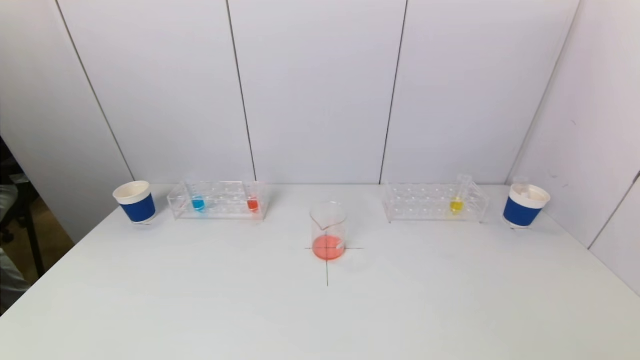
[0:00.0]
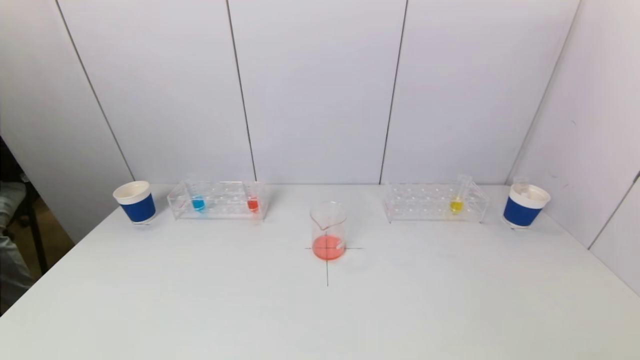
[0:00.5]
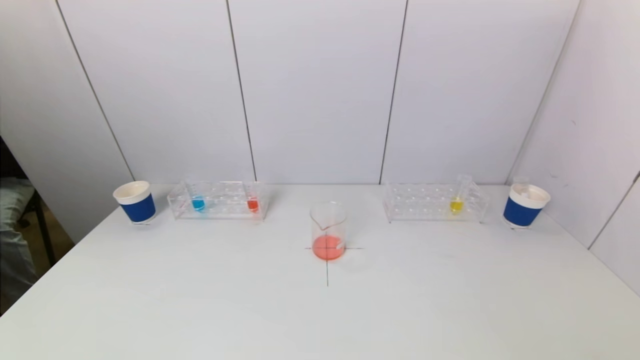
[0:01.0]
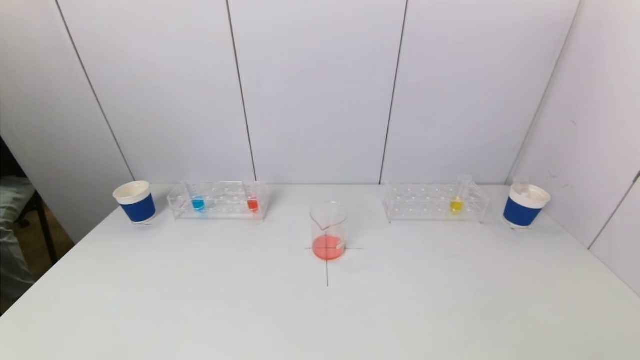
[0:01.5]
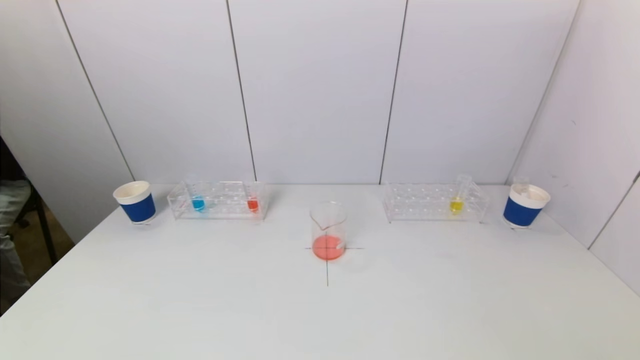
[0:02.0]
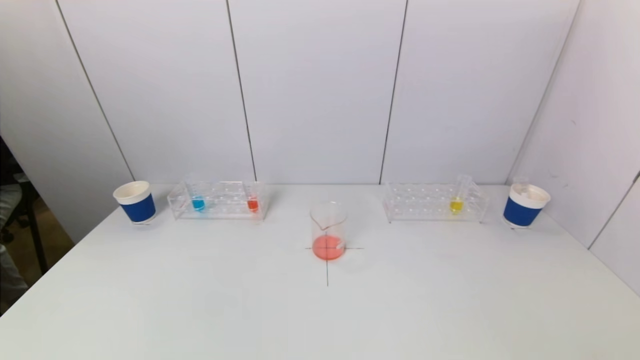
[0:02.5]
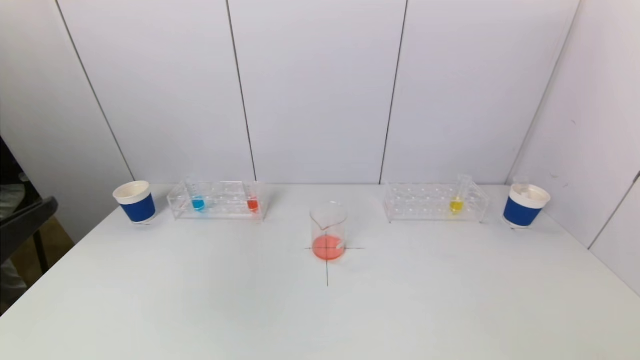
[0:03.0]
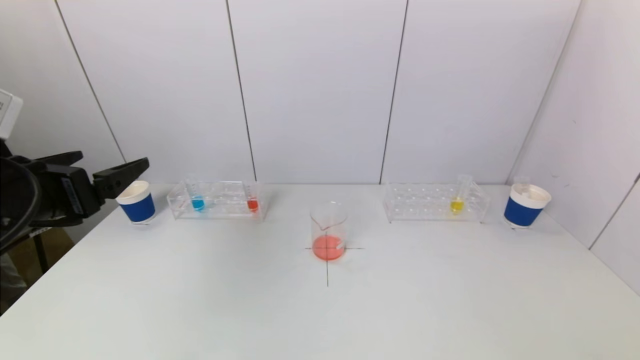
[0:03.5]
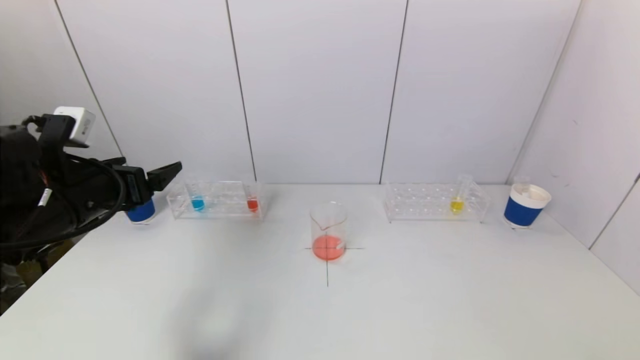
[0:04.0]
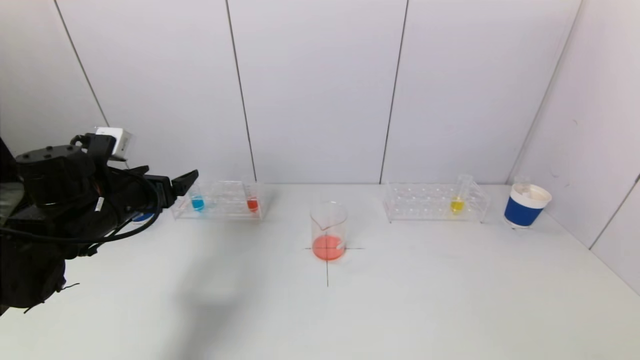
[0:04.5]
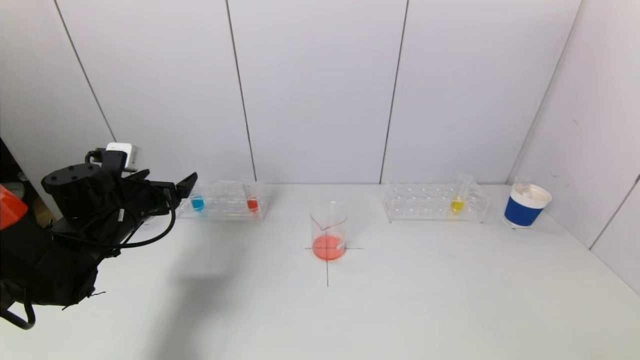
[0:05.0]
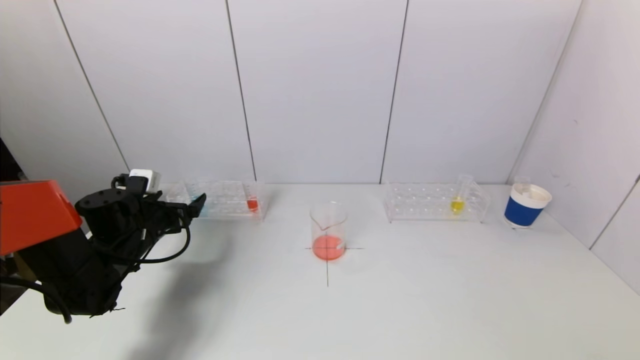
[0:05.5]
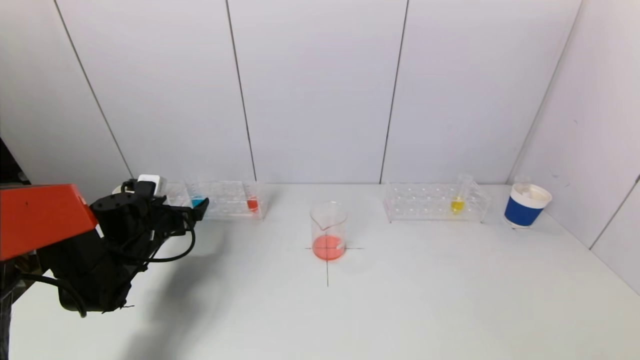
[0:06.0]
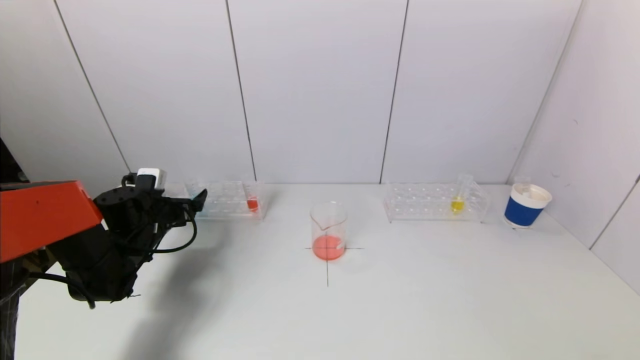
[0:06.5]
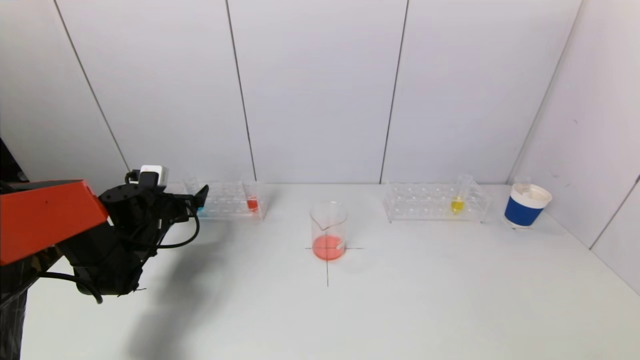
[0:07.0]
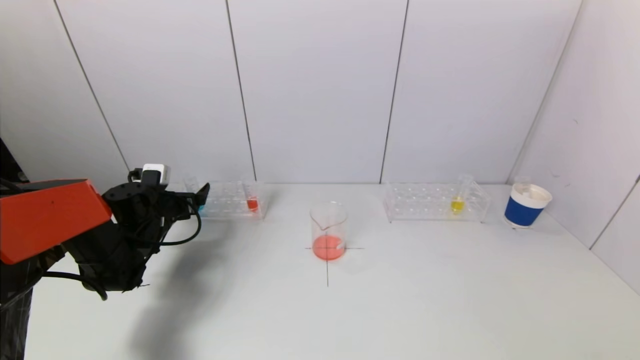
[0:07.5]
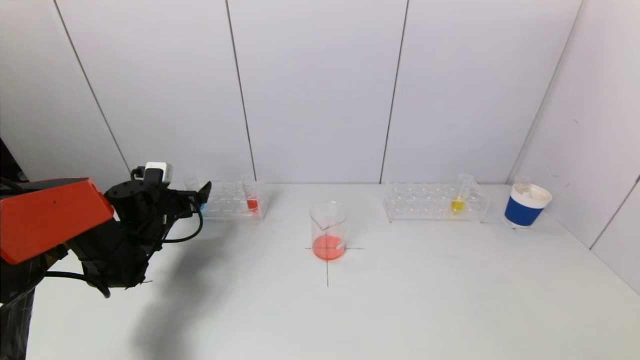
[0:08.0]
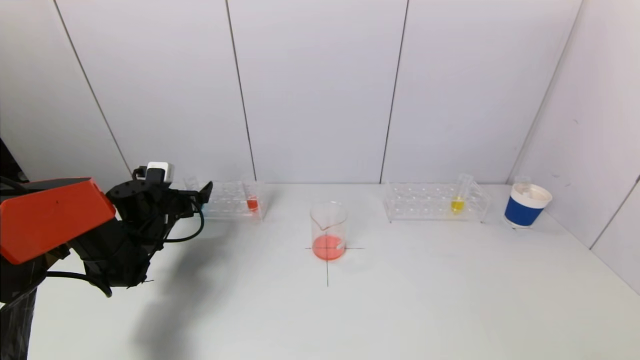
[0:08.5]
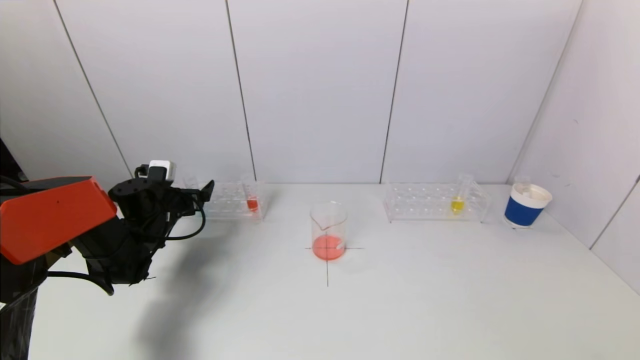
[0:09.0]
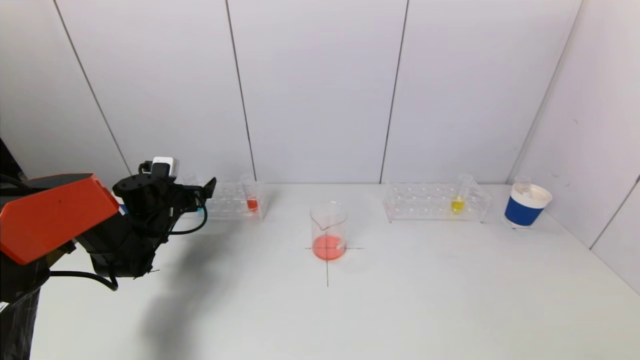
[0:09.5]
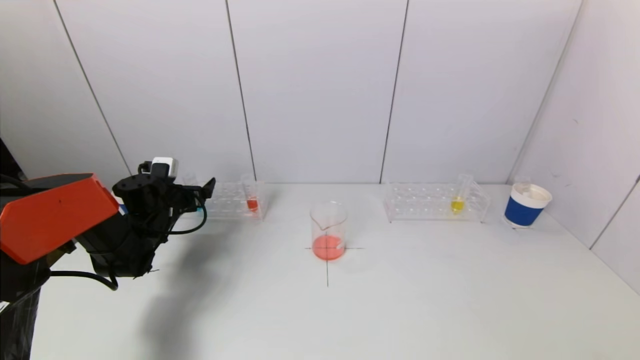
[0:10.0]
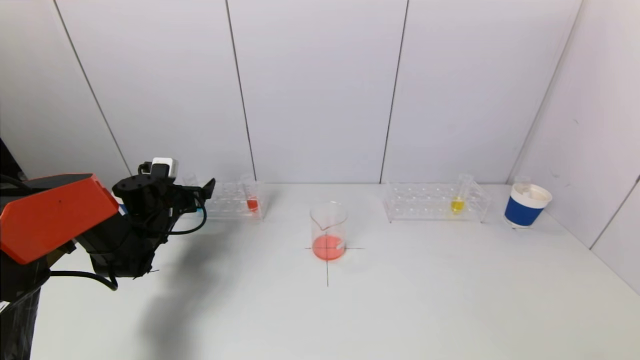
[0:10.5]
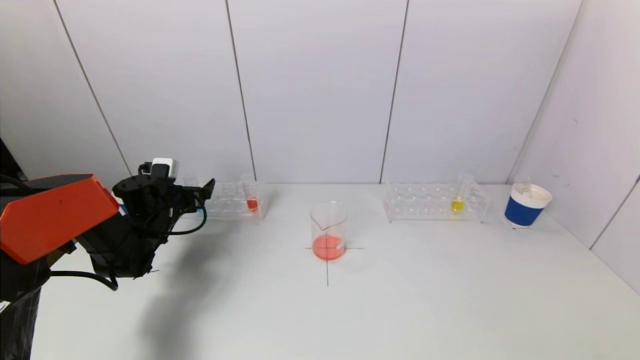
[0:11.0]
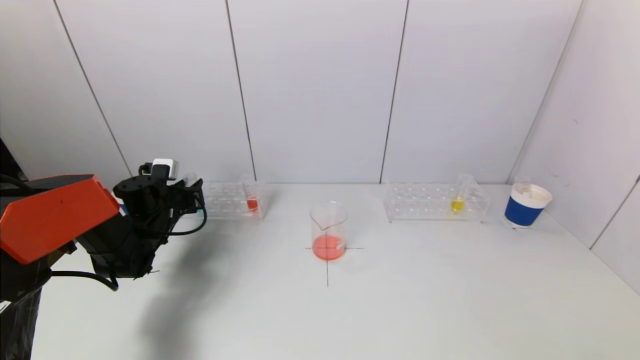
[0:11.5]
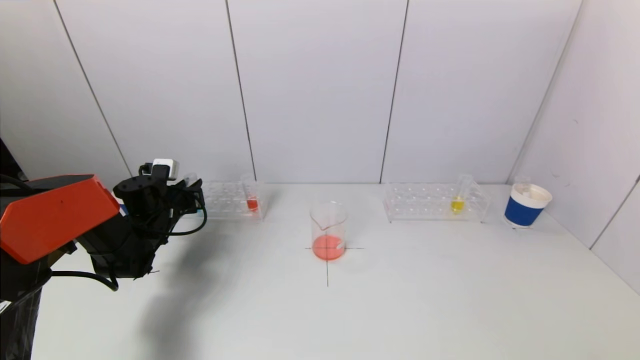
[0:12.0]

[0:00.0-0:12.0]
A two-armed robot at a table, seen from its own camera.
Task of the whole recording: pick up a test tube with pigment on left test tube rack and a test tube with pigment on right test tube rack by grippers and pour them into the beaker.
0.0 to 2.0 s: The left gripper heads upward, covering some 5 cm.
2.0 to 4.0 s: The left gripper goes approximately 30 cm forward.
4.0 to 6.0 s: The left gripper travels downward and forward by approximately 20 cm.
6.0 to 10.0 s: The grippers move only a little.
10.0 to 12.0 s: The left gripper closes up.

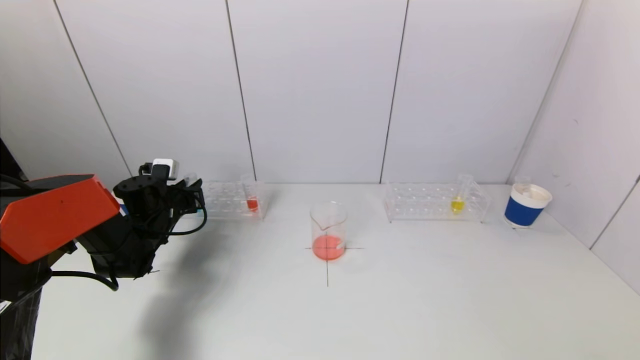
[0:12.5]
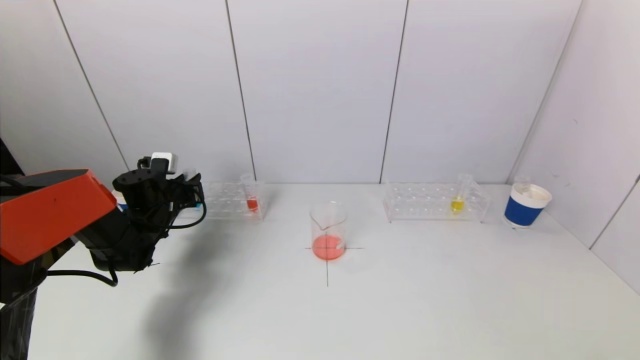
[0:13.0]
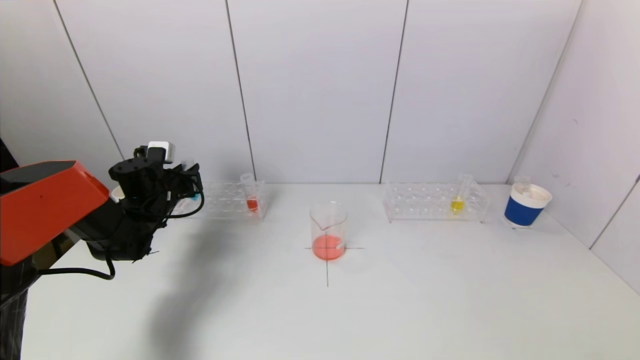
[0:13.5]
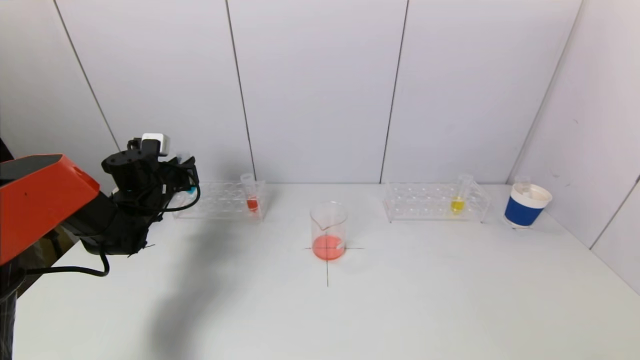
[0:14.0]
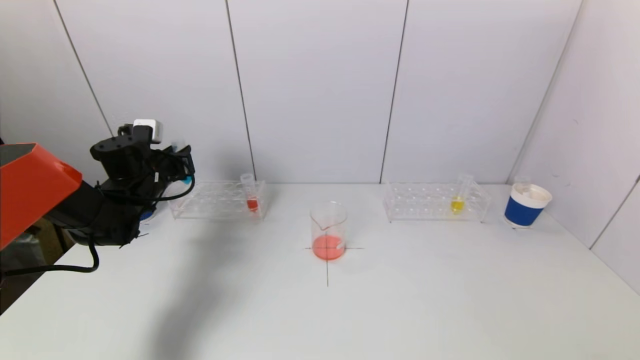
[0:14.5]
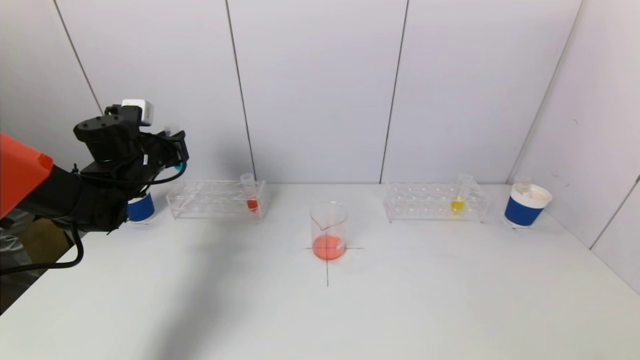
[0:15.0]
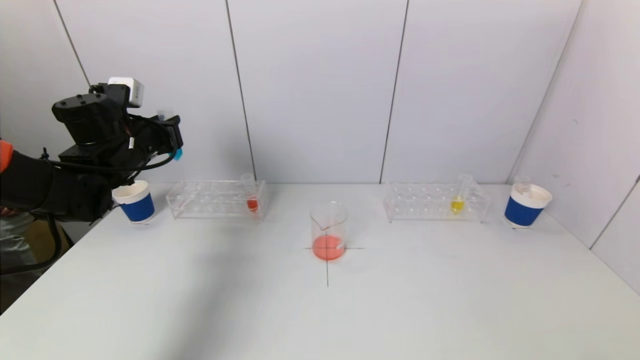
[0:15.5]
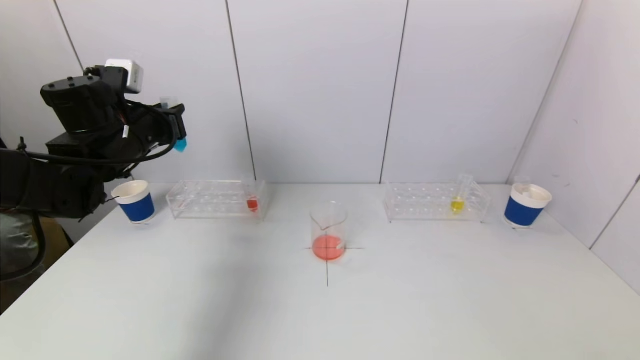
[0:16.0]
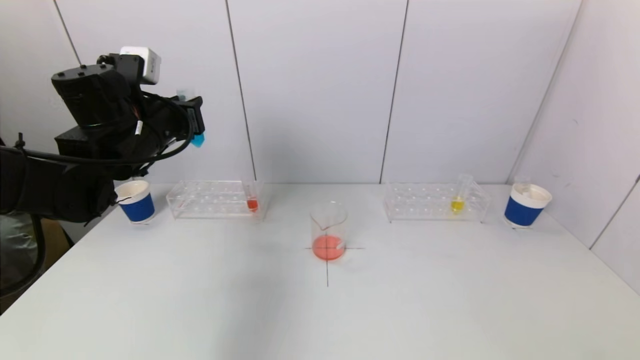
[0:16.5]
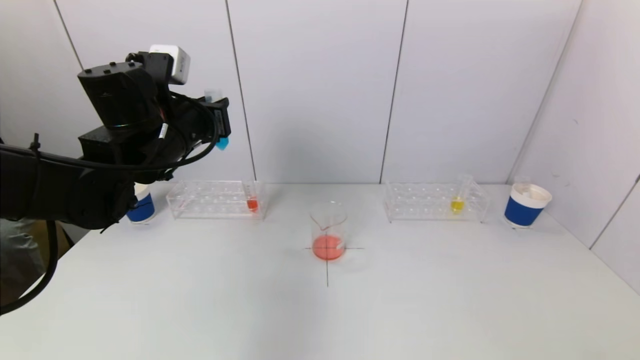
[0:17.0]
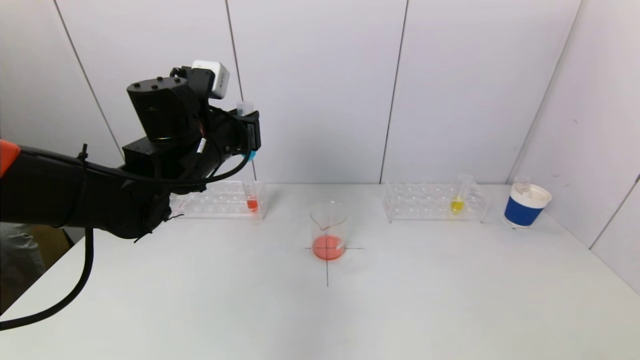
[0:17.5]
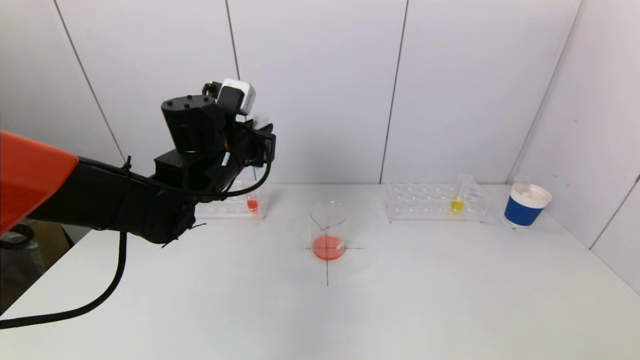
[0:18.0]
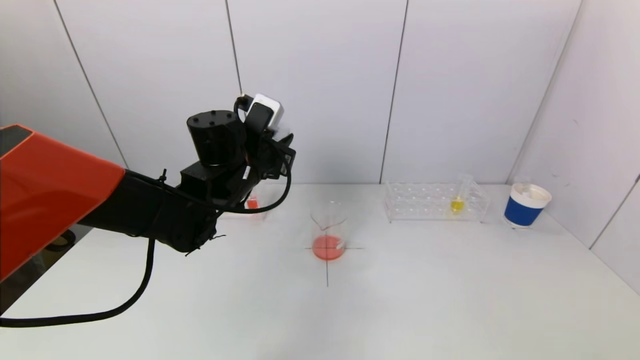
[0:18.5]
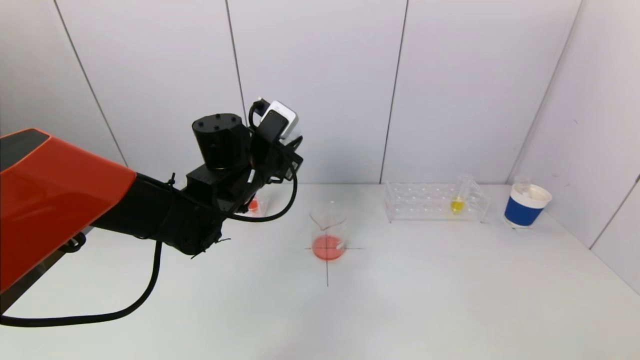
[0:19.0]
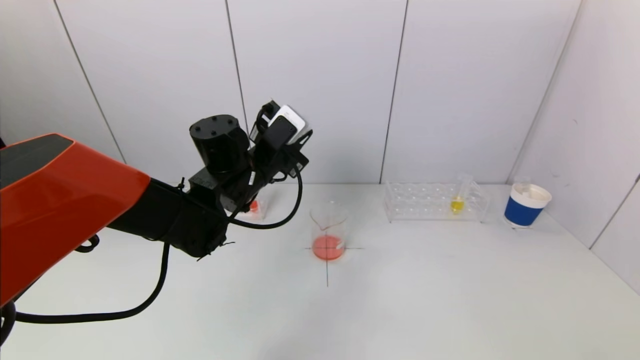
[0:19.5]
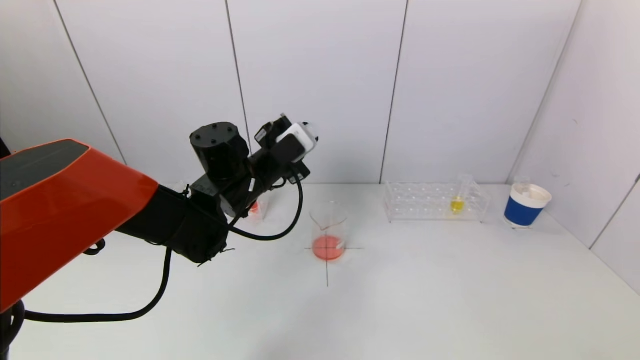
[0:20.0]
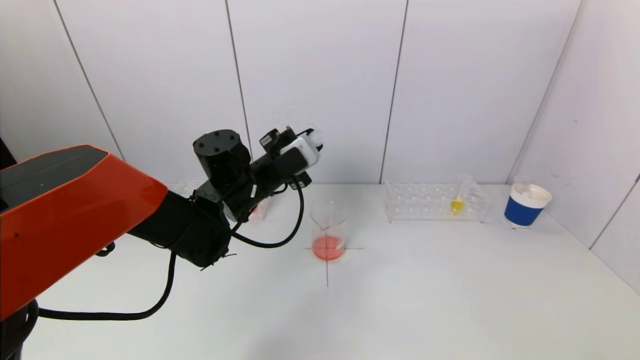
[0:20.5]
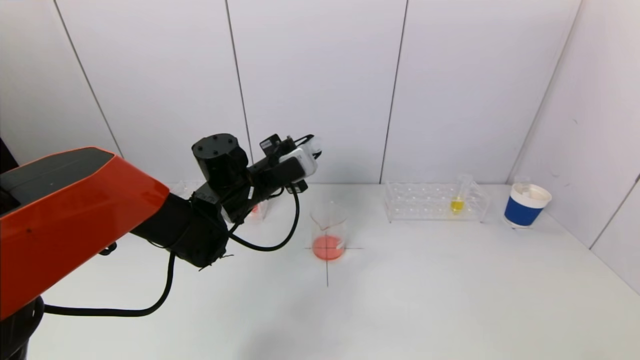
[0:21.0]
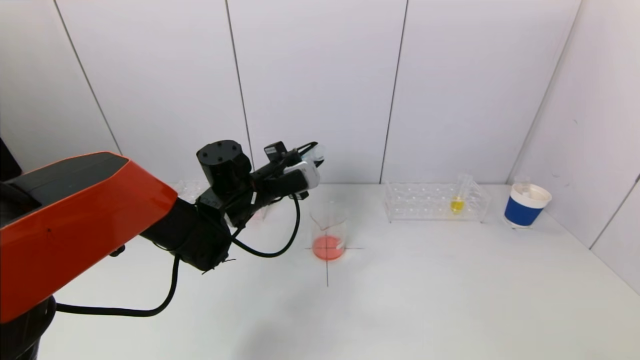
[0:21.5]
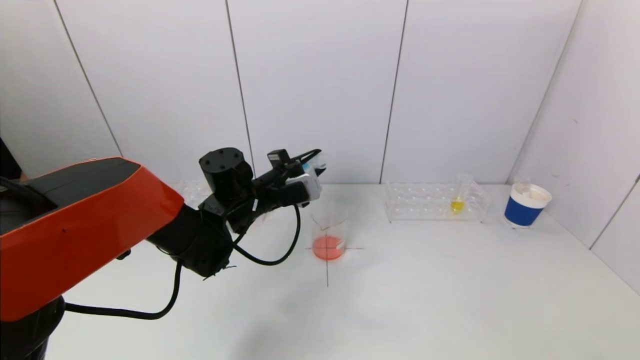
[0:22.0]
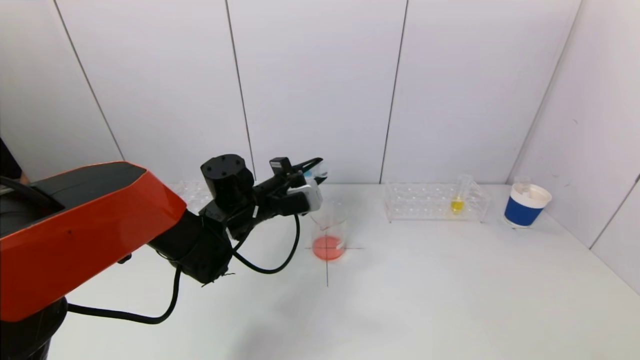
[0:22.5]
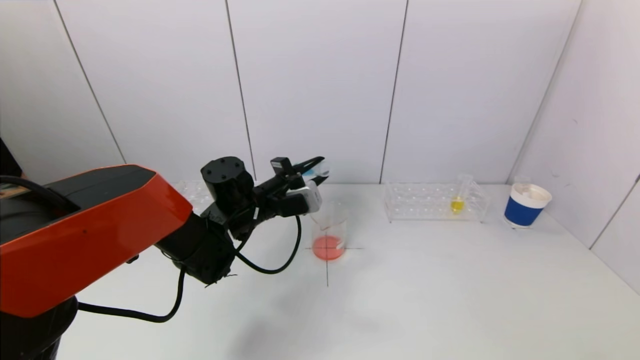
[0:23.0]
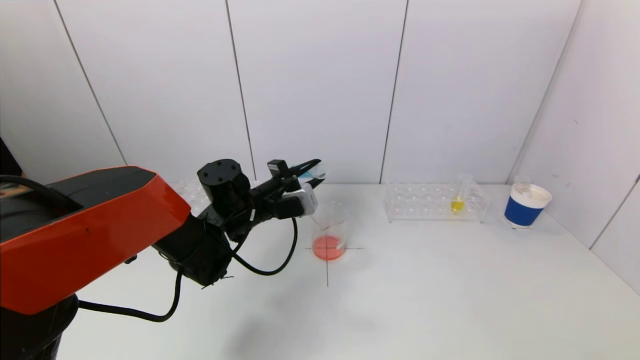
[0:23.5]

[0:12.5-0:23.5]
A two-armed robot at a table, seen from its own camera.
Task of the whole recording: pick up a test tube with pigment on left test tube rack and a test tube with pigment on right test tube rack by grippers and pour them into the beaker.
12.5 to 14.5 s: The left gripper heads upward, covering approximately 10 cm.
14.5 to 16.0 s: The left gripper shifts roughly 10 cm upward and backward.
16.0 to 18.0 s: The left gripper moves to the right, about 15 cm.
20.0 to 21.5 s: The grippers move only a little.
21.5 to 23.5 s: There are only small adjustments of the grippers.
